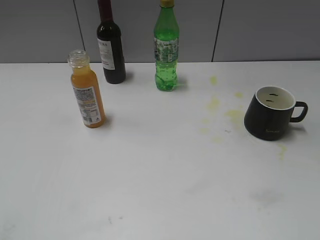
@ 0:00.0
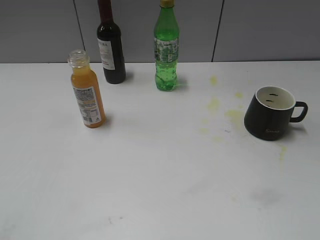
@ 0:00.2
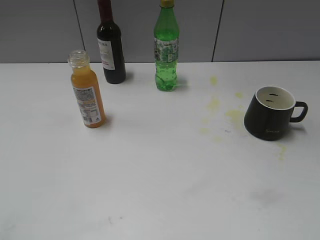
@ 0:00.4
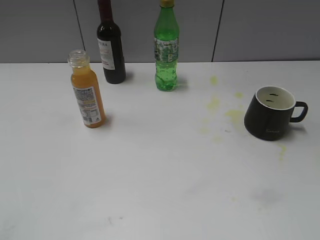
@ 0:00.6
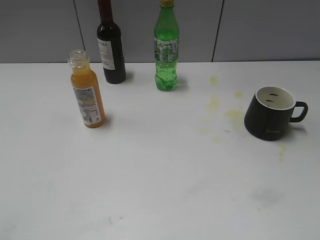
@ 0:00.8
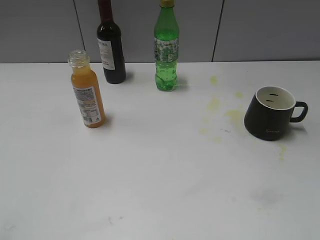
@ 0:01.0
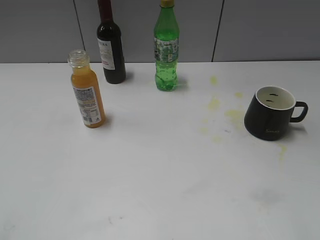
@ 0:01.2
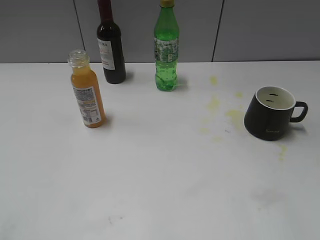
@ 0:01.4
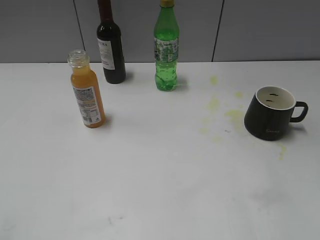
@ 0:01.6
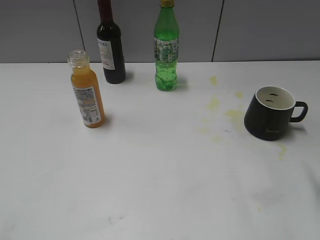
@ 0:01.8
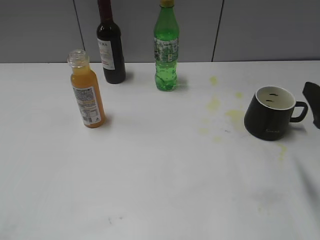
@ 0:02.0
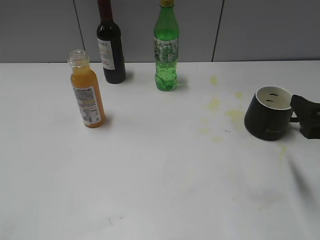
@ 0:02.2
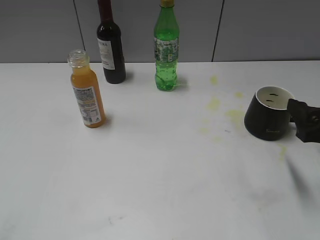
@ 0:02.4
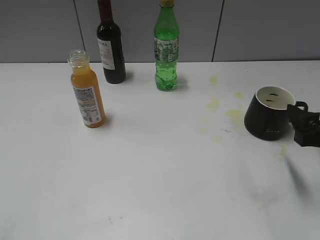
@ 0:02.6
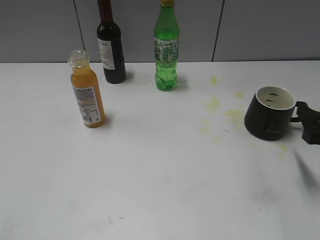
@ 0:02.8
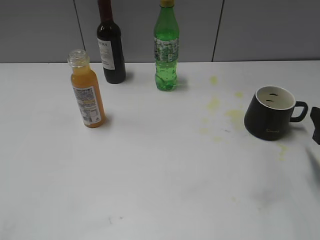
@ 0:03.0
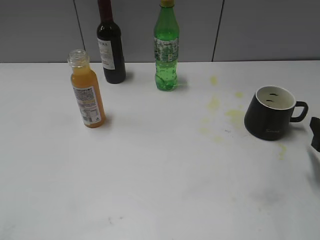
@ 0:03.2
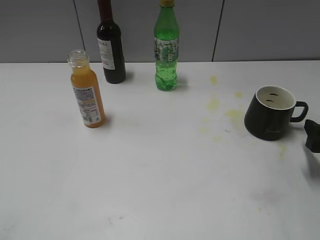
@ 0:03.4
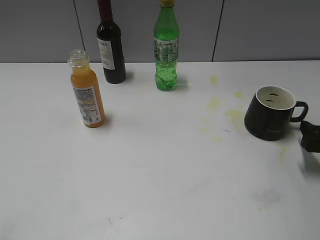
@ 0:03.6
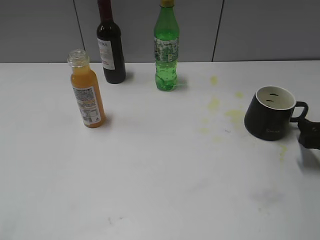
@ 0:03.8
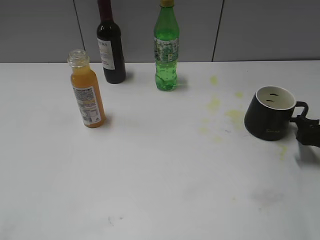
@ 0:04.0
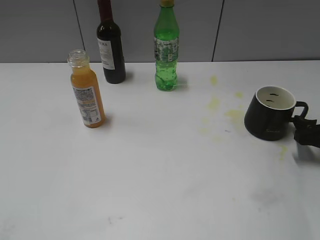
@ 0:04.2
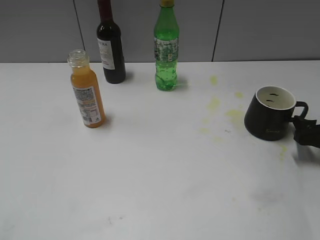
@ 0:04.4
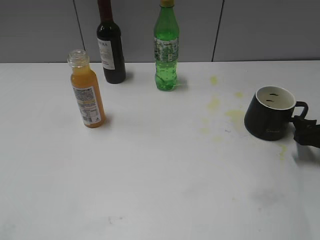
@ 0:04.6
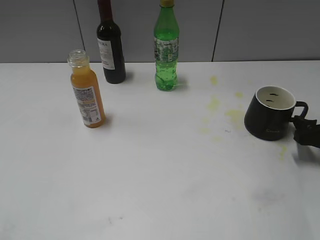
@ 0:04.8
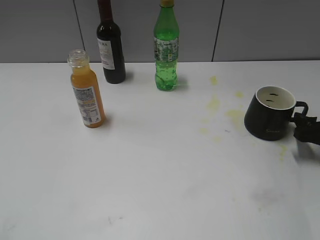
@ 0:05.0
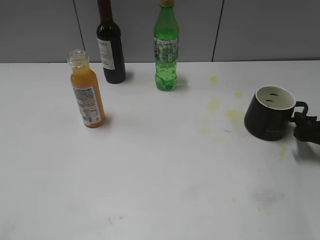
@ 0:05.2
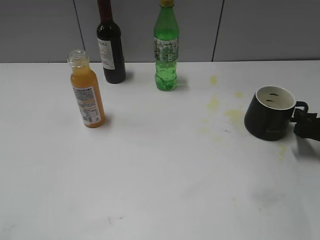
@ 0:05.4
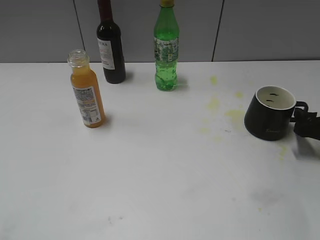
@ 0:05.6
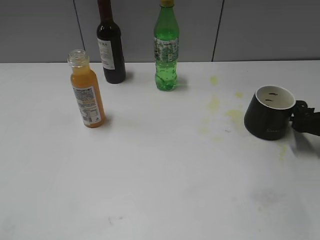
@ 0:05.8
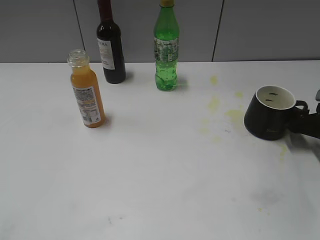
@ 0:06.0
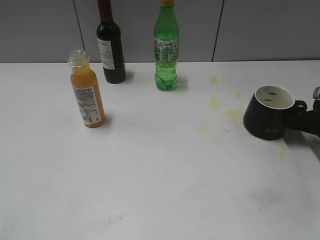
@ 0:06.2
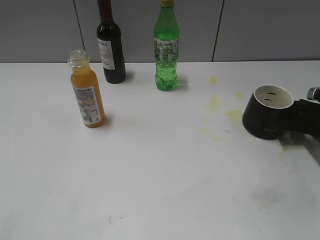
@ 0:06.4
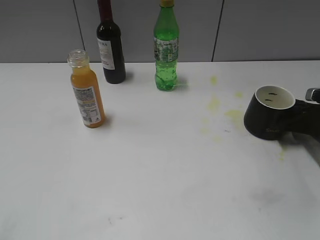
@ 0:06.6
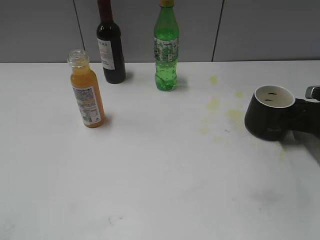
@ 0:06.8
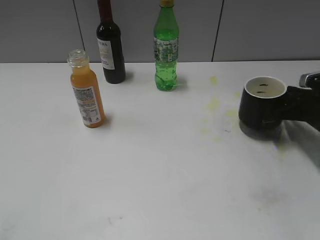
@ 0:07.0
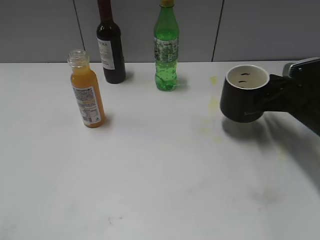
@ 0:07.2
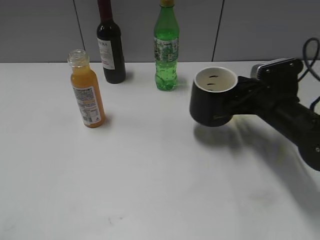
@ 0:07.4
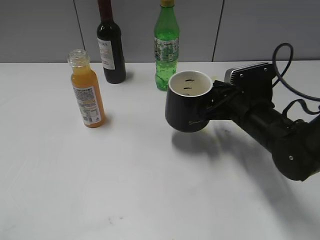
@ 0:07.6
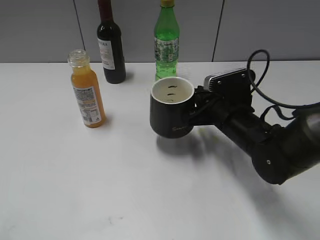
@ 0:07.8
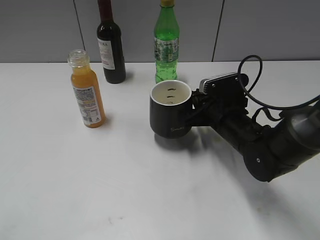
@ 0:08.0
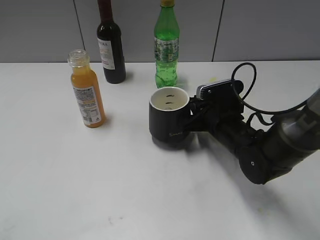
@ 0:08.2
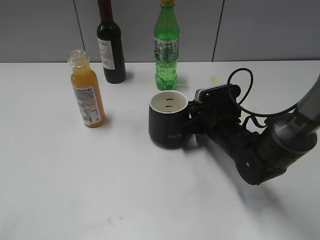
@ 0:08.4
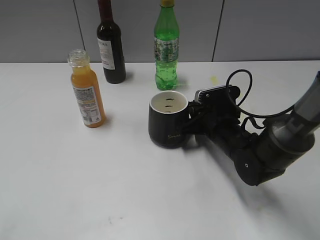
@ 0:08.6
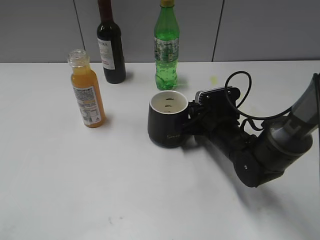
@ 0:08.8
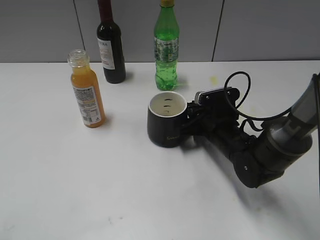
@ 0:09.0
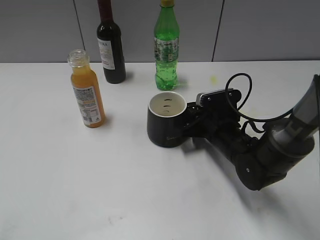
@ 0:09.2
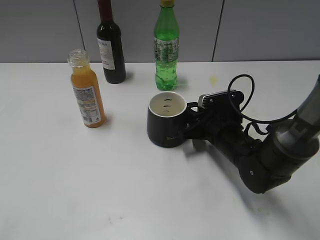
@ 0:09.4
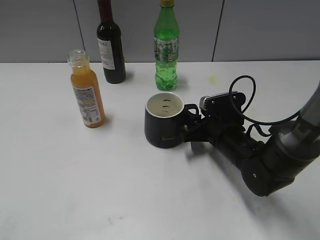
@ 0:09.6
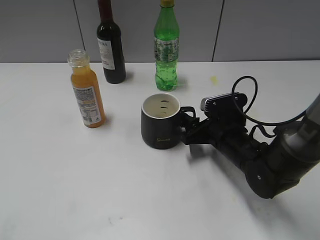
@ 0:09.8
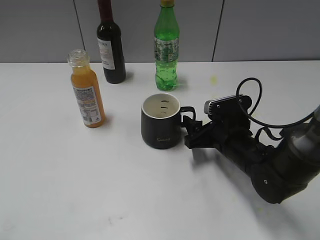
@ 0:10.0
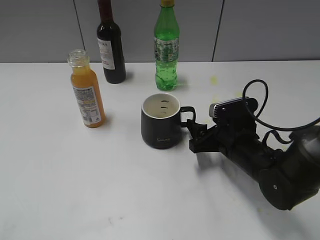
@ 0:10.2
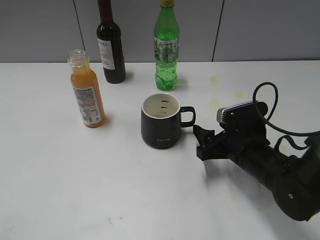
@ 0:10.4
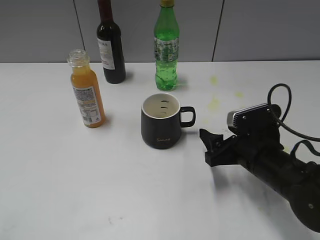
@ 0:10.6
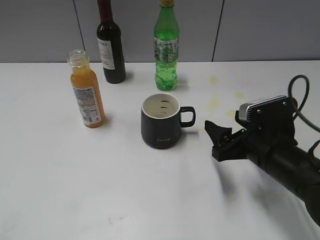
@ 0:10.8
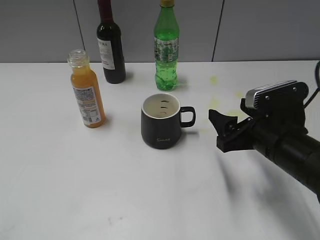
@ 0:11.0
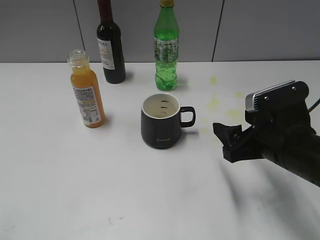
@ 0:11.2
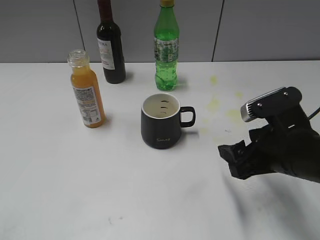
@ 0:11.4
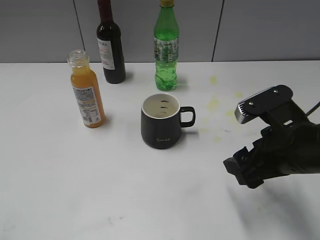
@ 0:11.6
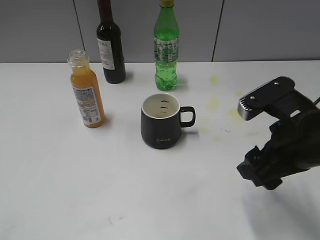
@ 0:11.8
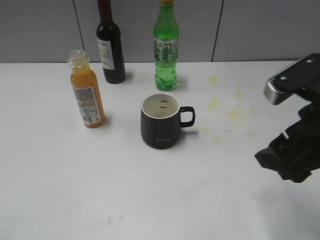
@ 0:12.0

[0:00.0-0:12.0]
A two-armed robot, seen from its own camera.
Step, 0:02.0 to 0:06.8: Grasp the black cup with right gripper.
Step, 0:07.0 to 0:09.4: Place the black cup in the center of view with right gripper.
0:01.6 to 0:03.0: The right gripper goes some 15 cm downward and forward.
0:03.0 to 0:04.4: The right gripper goes some 10 cm downward and forward.
0:04.4 to 0:06.0: The grippers move only a little.
0:06.0 to 0:07.6: The right gripper heads to the left, covering approximately 15 cm, and closes up.
0:07.6 to 0:09.0: The right gripper travels downward by about 5 cm.
0:09.0 to 0:10.4: The right gripper shifts roughly 5 cm backward, and opens.
0:10.4 to 0:12.0: The right gripper shifts approximately 20 cm upward and backward.

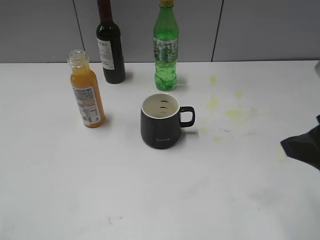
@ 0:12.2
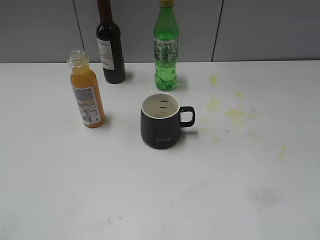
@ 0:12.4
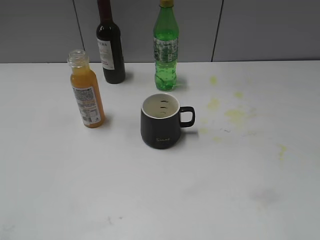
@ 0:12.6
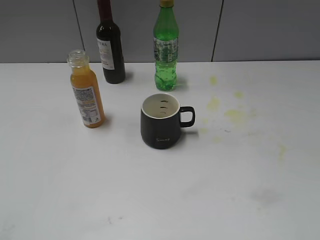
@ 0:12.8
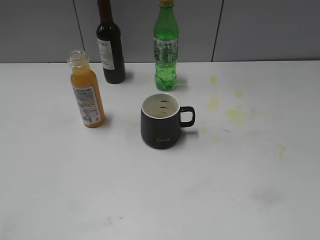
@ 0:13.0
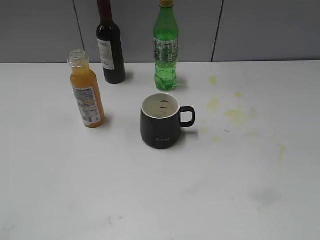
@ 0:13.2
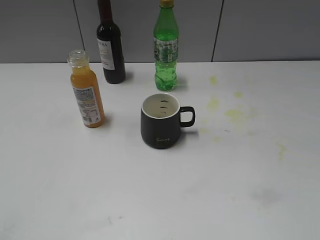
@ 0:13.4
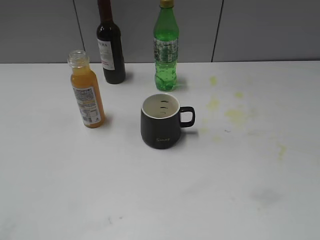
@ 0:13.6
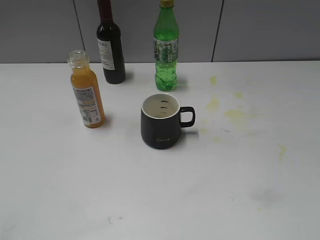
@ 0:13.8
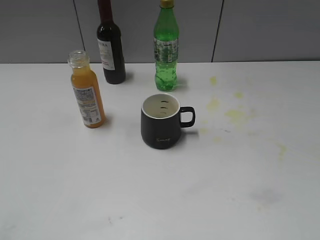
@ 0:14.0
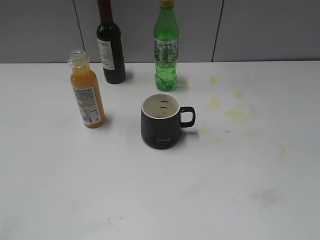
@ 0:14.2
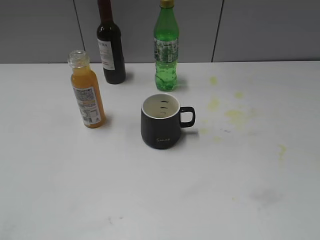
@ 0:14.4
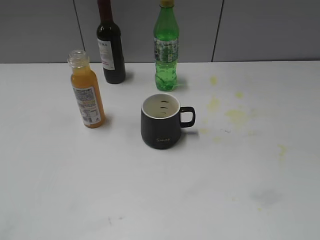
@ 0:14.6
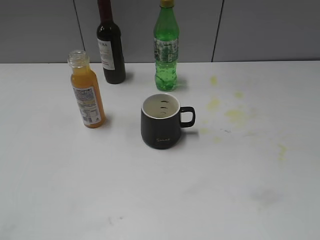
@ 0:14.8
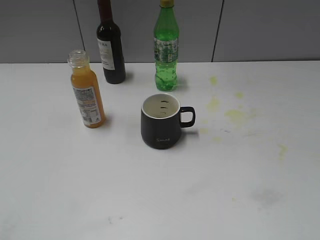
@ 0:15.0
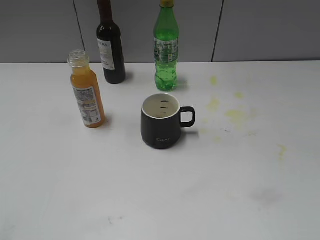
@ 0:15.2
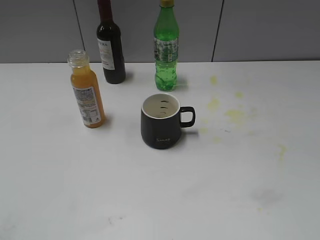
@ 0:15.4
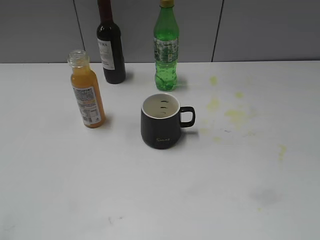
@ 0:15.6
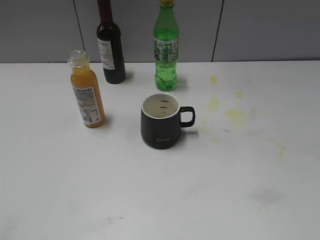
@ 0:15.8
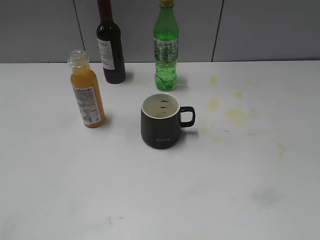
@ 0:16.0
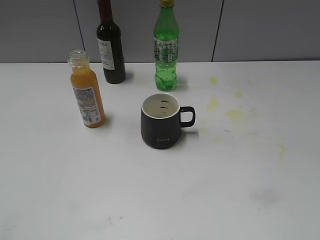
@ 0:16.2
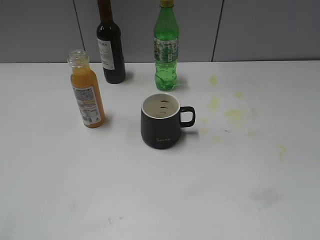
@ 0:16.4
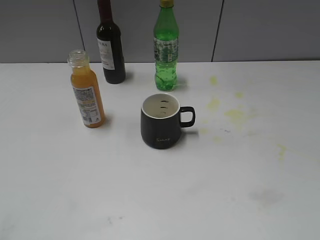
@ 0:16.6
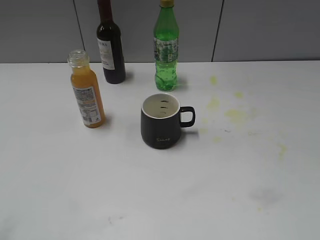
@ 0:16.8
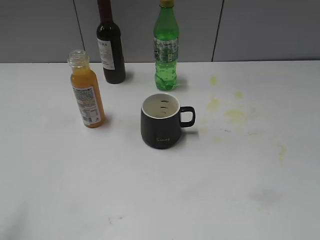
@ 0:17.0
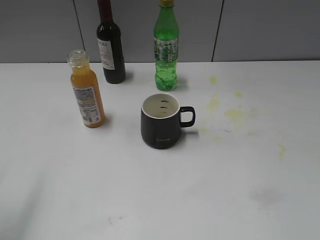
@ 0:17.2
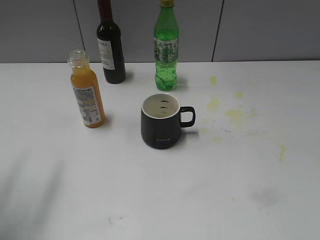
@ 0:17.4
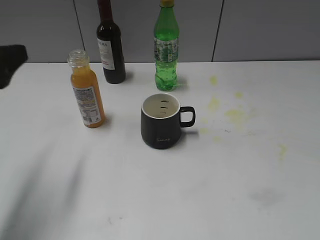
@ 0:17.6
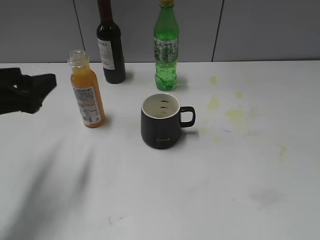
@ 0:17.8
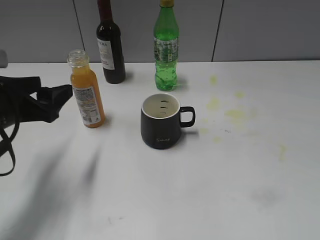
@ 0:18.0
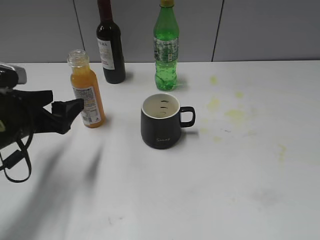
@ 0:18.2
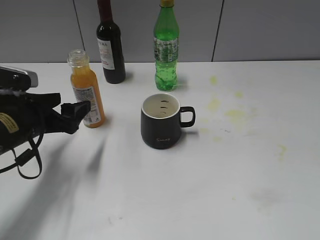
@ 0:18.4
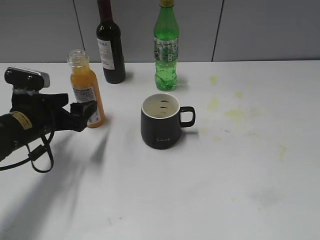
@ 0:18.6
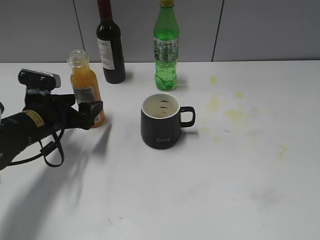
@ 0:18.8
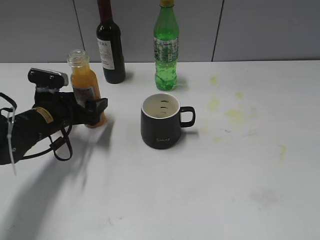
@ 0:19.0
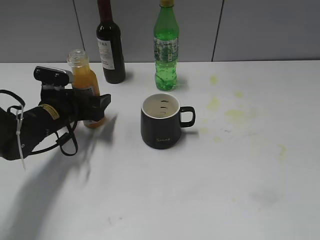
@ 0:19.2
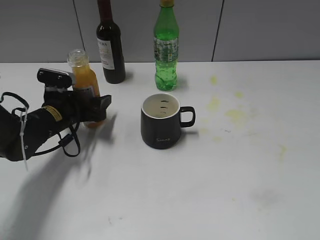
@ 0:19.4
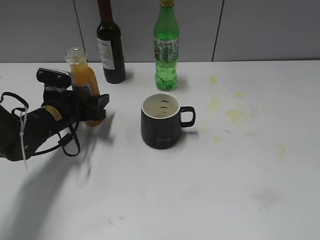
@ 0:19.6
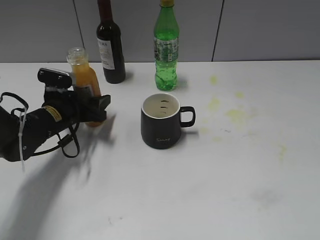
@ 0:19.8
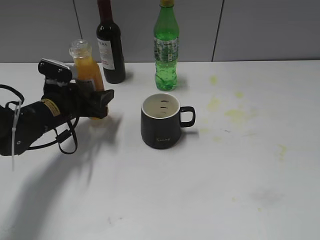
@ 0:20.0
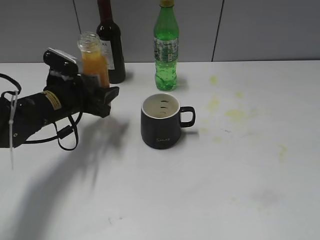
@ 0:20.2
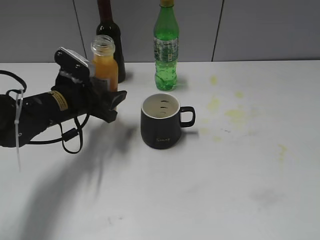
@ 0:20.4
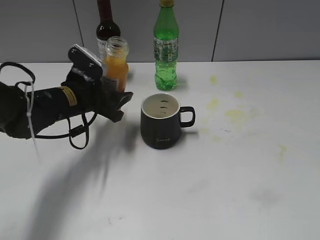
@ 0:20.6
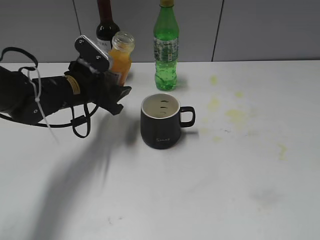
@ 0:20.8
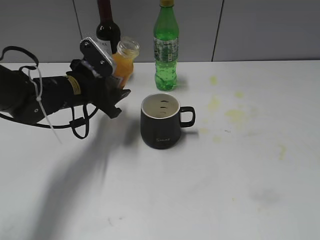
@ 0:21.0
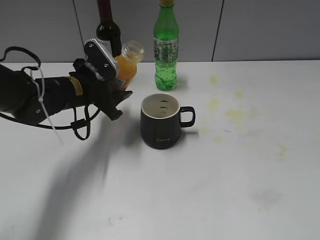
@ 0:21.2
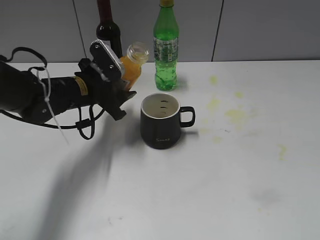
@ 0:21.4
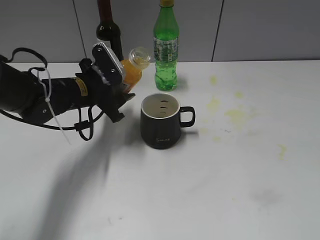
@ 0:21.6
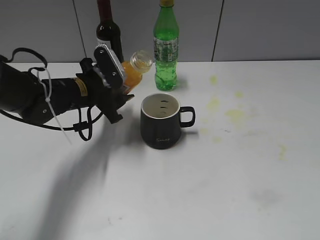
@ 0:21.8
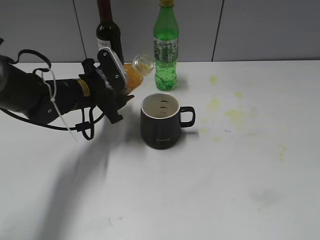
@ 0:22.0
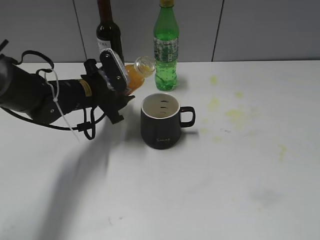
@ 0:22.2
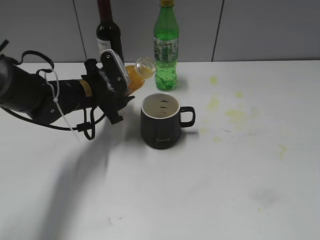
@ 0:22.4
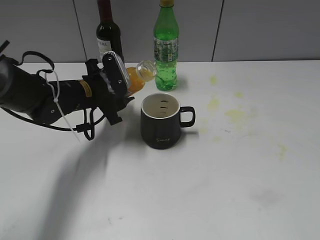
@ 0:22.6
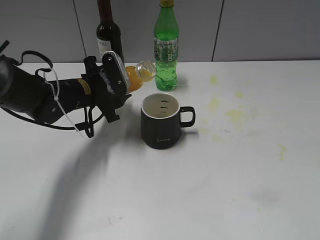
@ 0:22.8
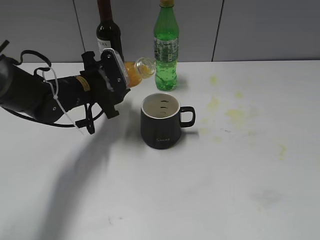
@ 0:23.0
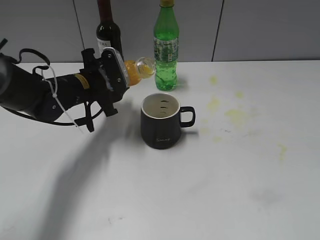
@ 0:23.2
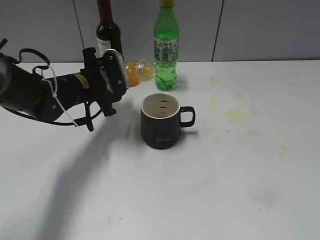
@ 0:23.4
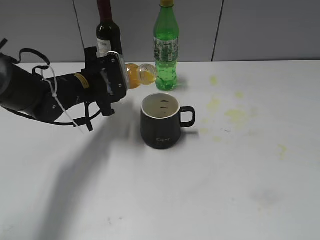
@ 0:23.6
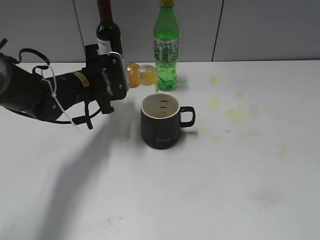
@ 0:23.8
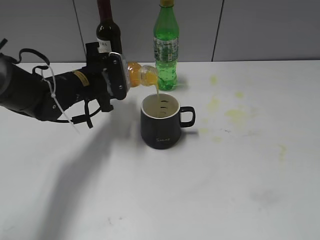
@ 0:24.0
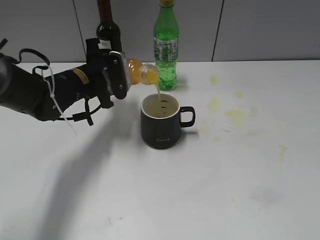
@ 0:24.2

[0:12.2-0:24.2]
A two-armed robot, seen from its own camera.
Step, 0:12.2 to 0:19.6: Grasp the bottle with orange juice with left gripper.
0:12.2 to 0:13.8: The right gripper is displaced backward and to the right by some 15 cm.
0:13.8 to 0:15.2: Both grippers stay about where they are.
0:16.6 to 0:18.2: The left gripper goes roughly 30 cm forward and downward.
0:18.2 to 0:19.8: The left gripper goes some 10 cm forward and downward, and closes its fingers.
0:19.8 to 0:21.2: The left gripper shifts about 10 cm upward and to the right.
0:21.2 to 0:22.6: The grippers make only small movements.
